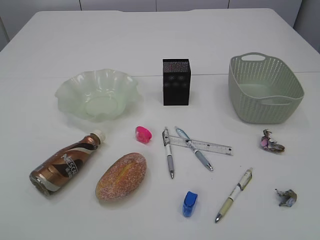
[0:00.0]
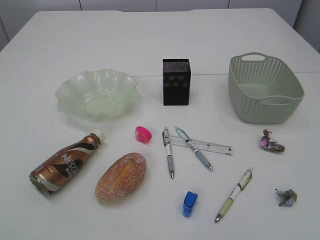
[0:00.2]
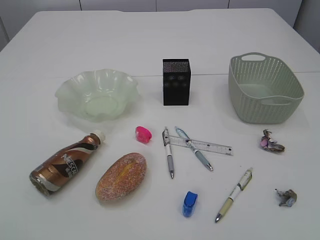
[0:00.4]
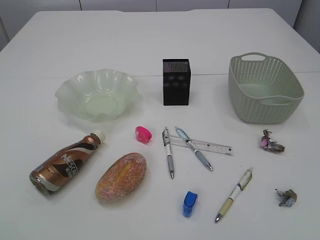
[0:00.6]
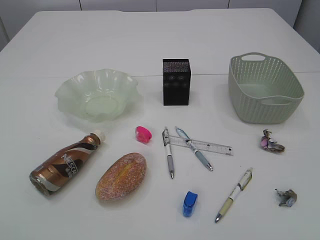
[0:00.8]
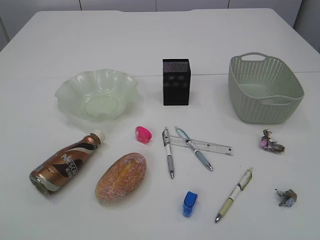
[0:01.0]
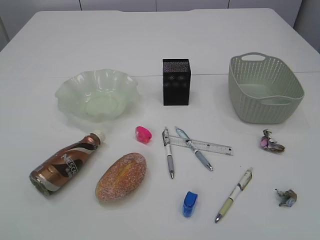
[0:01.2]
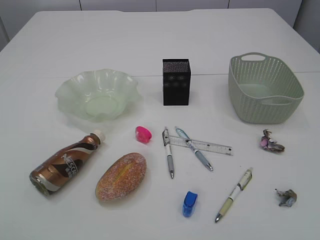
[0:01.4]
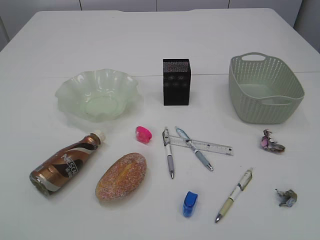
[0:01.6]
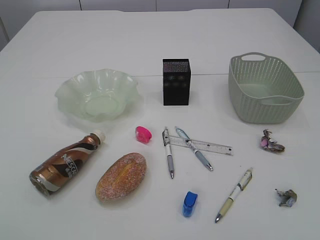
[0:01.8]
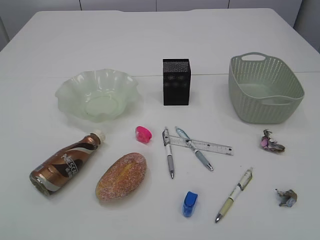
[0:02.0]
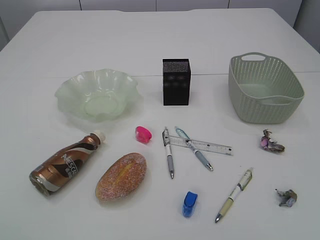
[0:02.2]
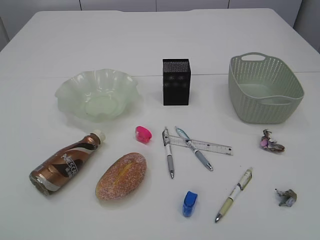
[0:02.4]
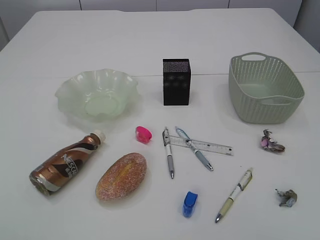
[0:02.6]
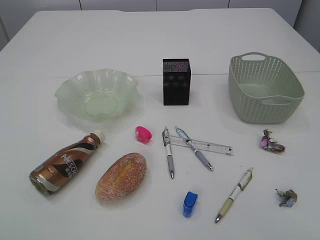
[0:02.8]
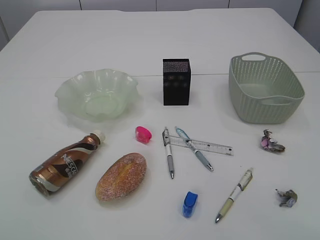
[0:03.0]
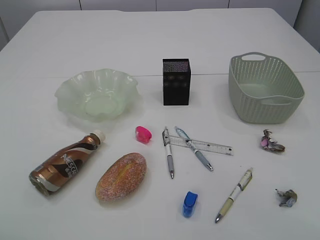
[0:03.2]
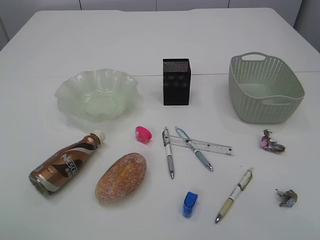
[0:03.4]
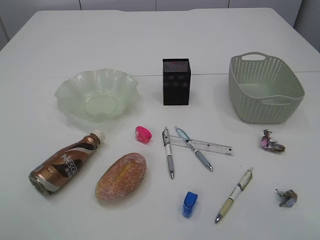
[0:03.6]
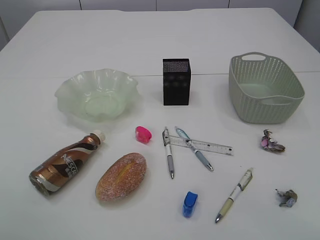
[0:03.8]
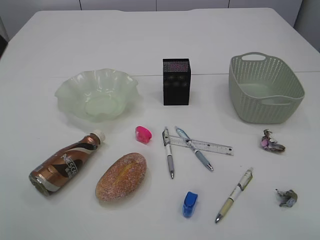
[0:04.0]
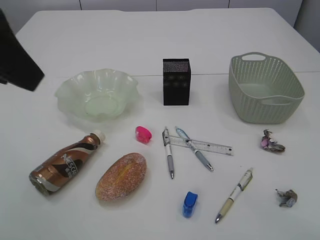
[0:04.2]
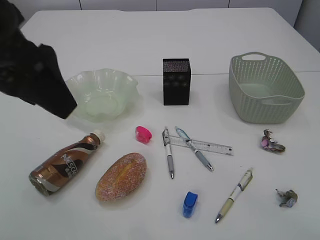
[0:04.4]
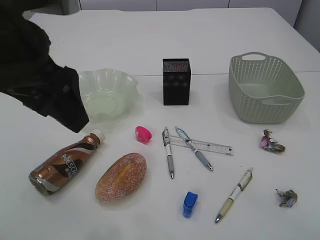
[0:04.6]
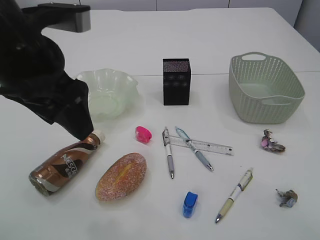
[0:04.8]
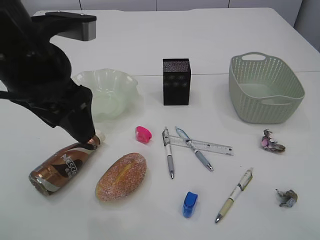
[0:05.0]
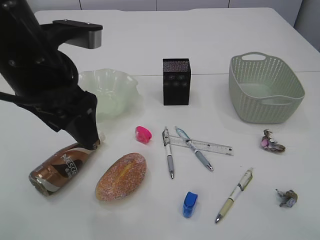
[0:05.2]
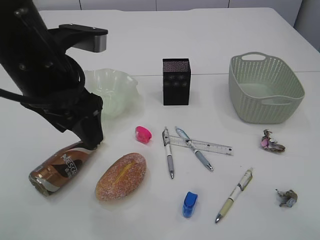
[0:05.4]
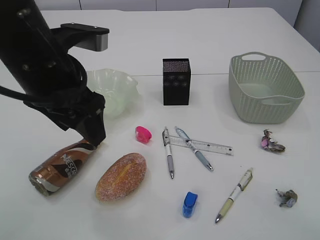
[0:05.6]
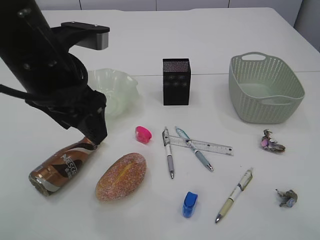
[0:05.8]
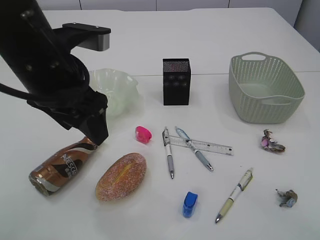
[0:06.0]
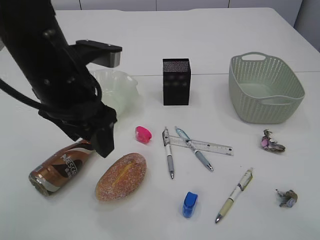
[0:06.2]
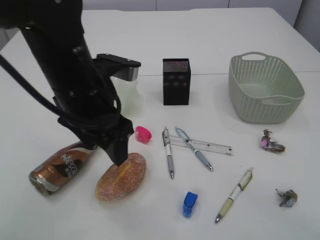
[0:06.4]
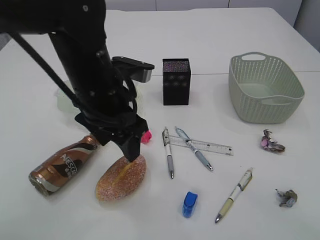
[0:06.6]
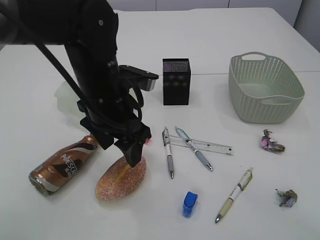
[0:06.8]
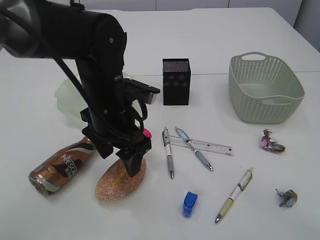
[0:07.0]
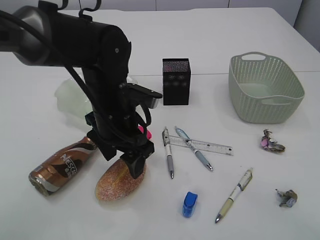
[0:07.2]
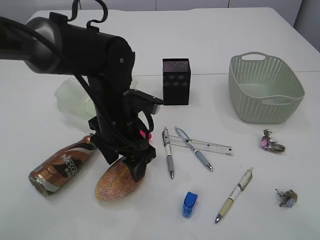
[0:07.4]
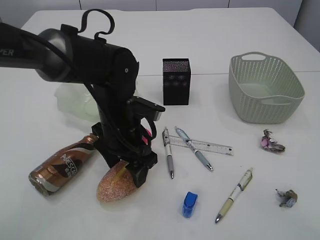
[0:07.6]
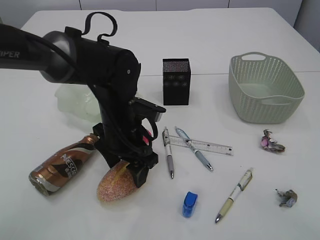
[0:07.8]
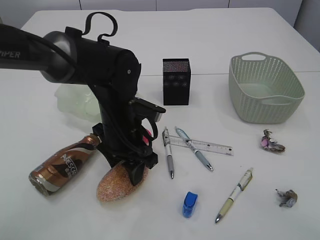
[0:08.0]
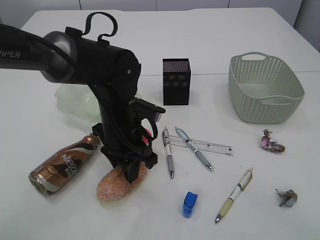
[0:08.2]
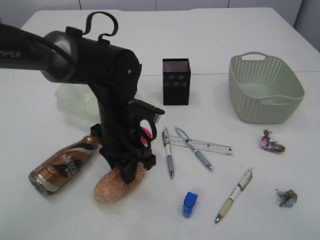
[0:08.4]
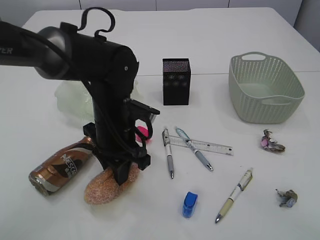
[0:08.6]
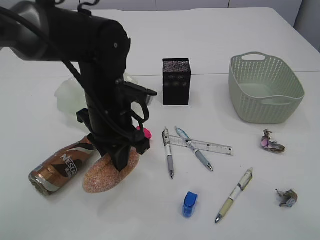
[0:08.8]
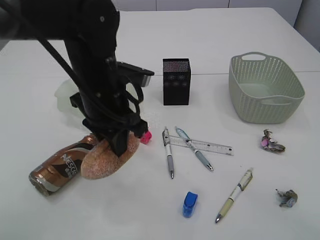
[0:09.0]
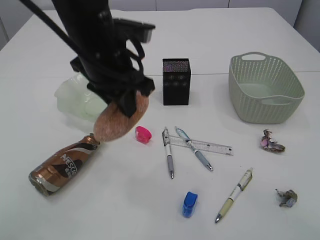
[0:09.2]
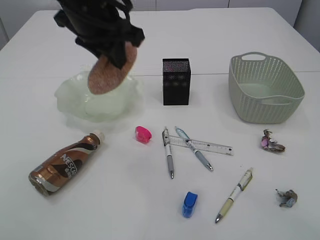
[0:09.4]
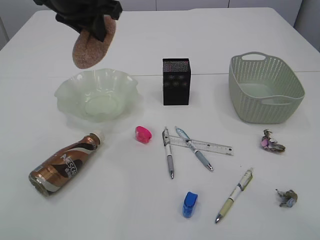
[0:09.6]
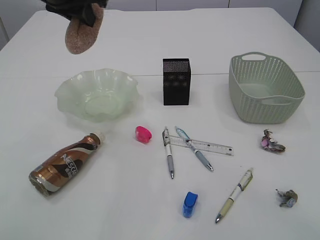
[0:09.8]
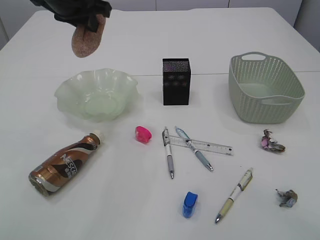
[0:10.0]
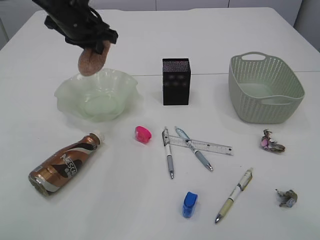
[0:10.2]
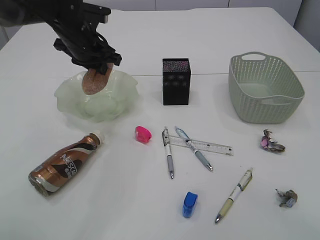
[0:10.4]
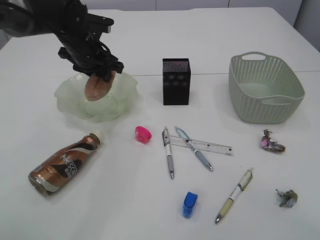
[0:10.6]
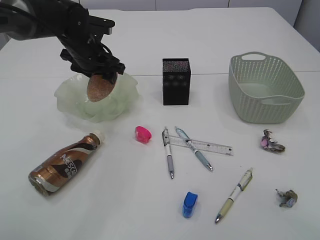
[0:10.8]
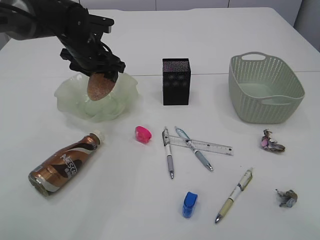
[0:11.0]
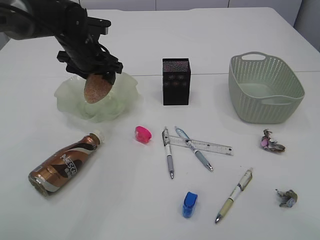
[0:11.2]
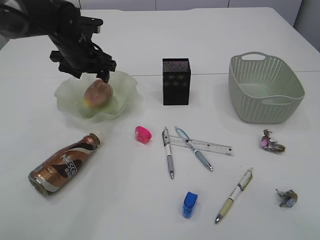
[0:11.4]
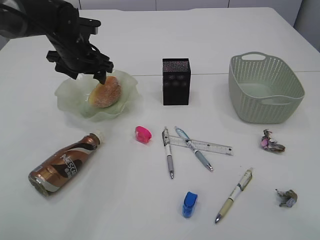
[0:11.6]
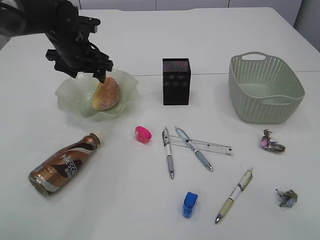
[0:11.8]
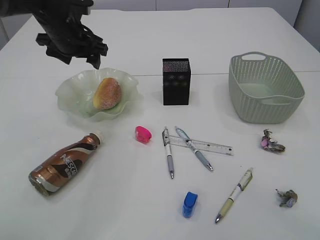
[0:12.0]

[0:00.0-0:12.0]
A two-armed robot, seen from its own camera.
0:03.0 to 0:04.4: The left gripper travels to the right and forward by roughly 15 cm.
0:04.4 to 0:06.0: The left gripper moves downward, about 10 cm.
0:06.0 to 0:07.6: The left gripper goes some 15 cm downward and to the right.
0:07.6 to 0:09.0: The left gripper moves upward, about 5 cm, and closes up.
0:09.0 to 0:10.4: The left gripper is displaced forward and to the left by some 20 cm.
0:10.4 to 0:12.0: The left gripper opens up.

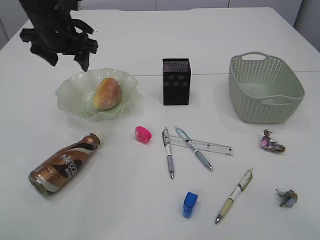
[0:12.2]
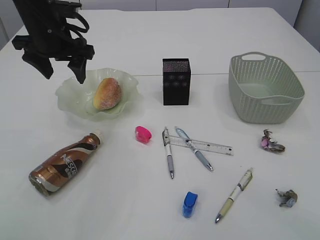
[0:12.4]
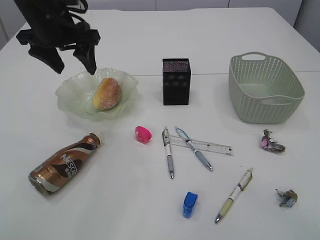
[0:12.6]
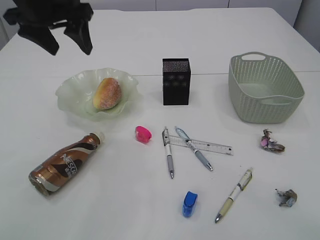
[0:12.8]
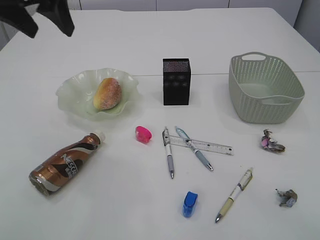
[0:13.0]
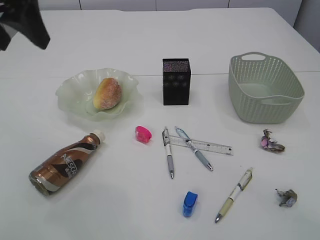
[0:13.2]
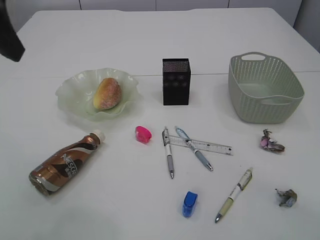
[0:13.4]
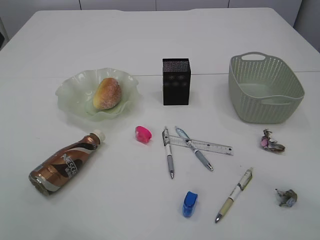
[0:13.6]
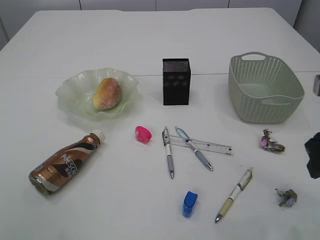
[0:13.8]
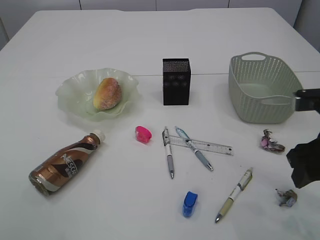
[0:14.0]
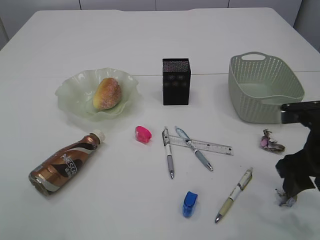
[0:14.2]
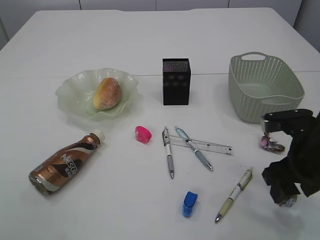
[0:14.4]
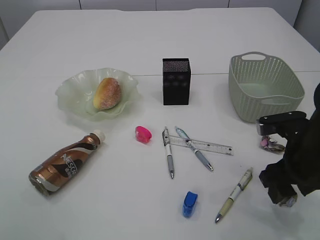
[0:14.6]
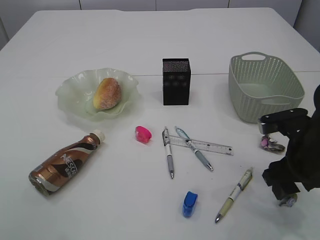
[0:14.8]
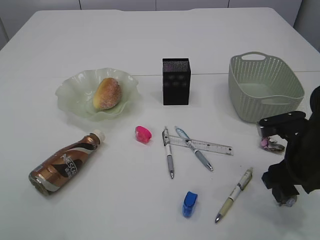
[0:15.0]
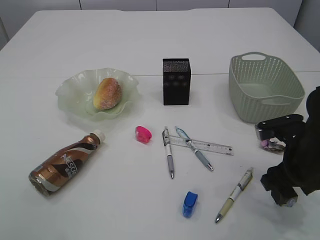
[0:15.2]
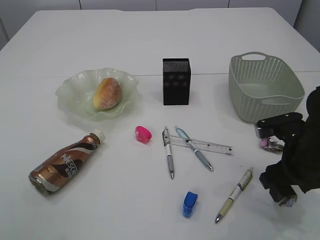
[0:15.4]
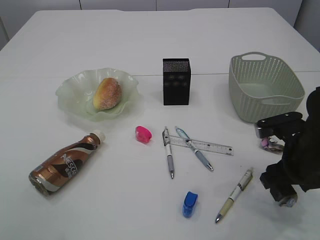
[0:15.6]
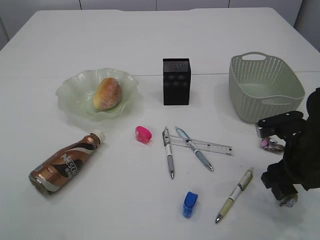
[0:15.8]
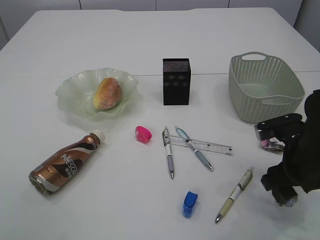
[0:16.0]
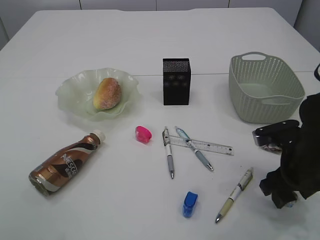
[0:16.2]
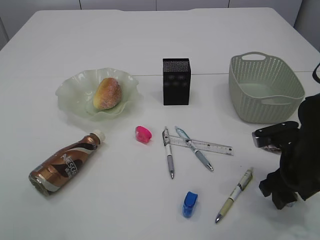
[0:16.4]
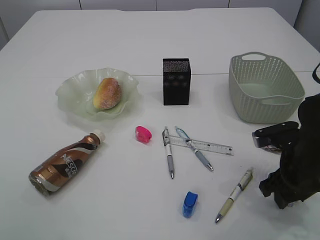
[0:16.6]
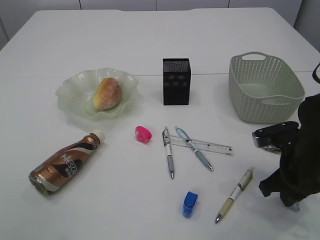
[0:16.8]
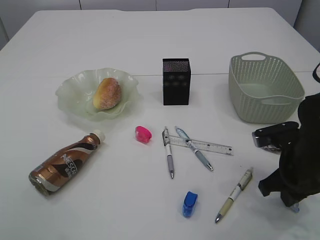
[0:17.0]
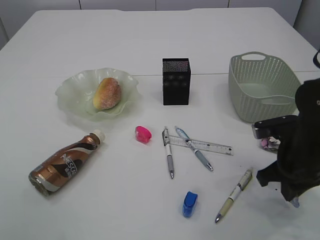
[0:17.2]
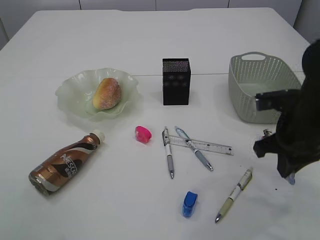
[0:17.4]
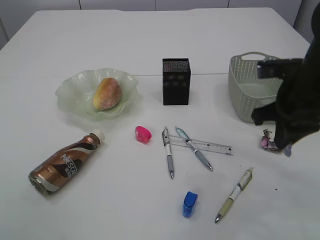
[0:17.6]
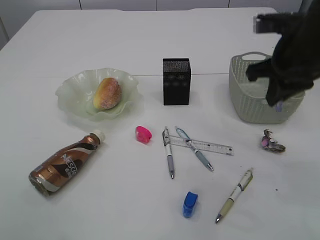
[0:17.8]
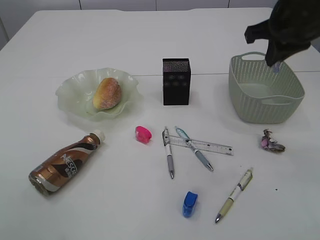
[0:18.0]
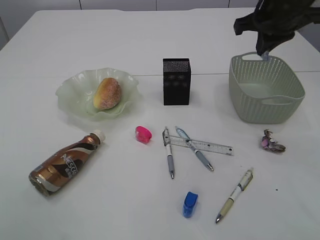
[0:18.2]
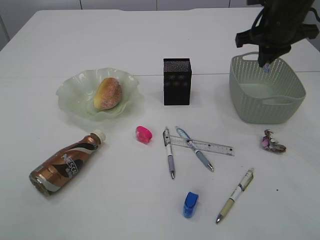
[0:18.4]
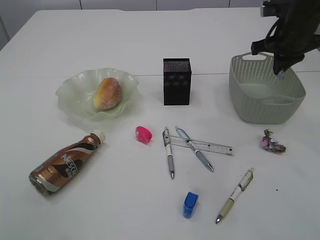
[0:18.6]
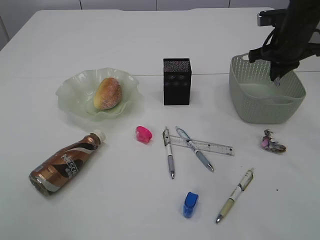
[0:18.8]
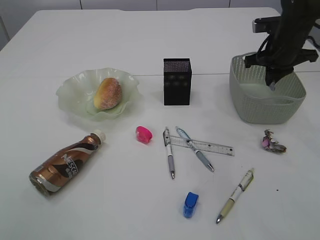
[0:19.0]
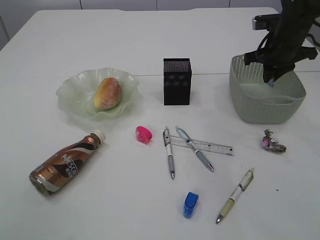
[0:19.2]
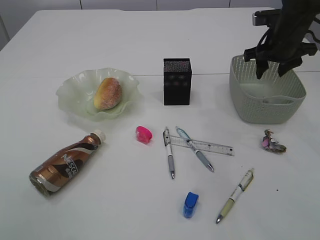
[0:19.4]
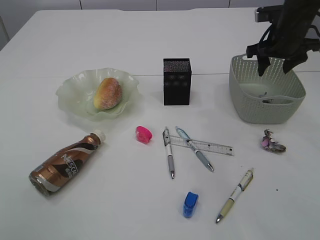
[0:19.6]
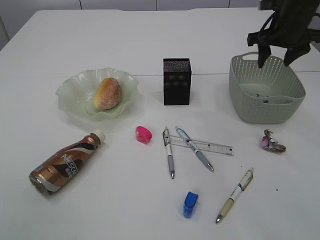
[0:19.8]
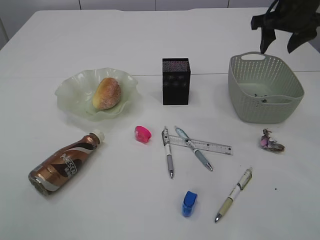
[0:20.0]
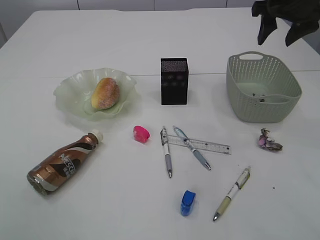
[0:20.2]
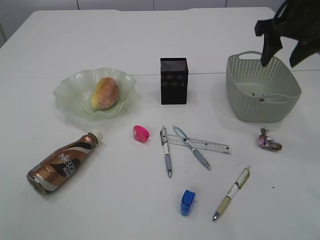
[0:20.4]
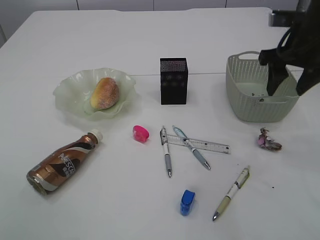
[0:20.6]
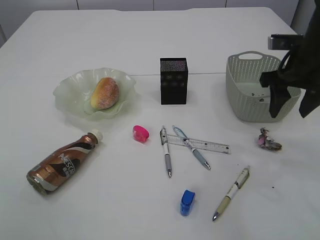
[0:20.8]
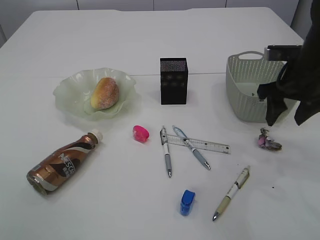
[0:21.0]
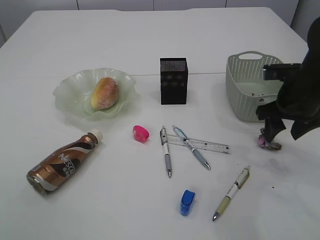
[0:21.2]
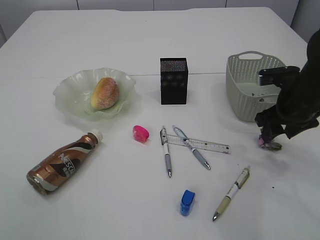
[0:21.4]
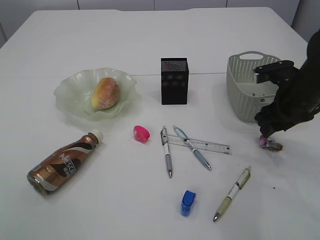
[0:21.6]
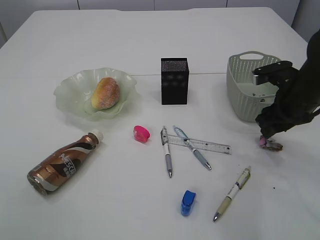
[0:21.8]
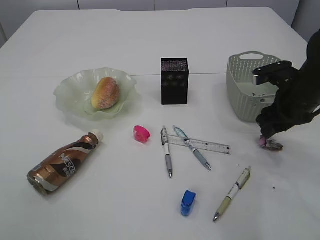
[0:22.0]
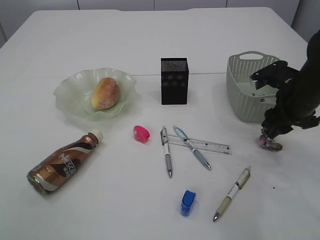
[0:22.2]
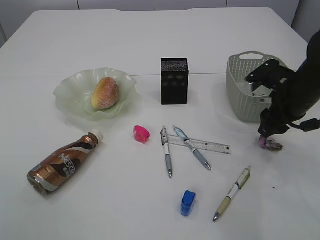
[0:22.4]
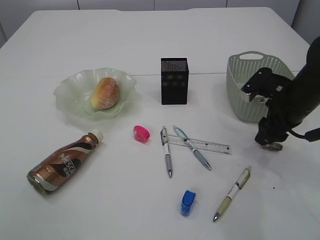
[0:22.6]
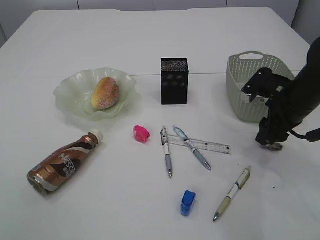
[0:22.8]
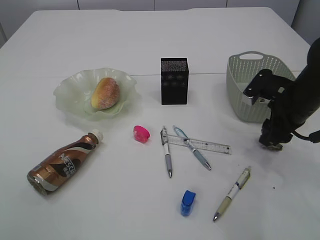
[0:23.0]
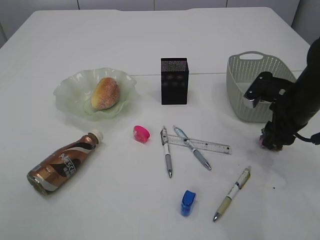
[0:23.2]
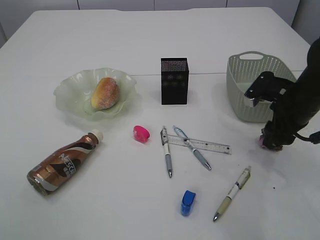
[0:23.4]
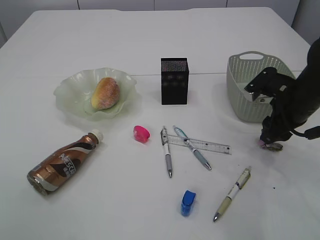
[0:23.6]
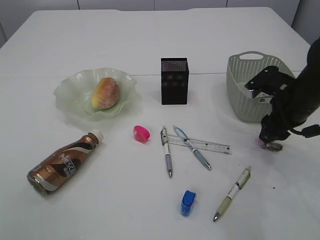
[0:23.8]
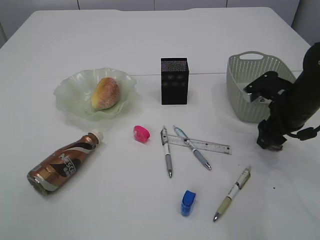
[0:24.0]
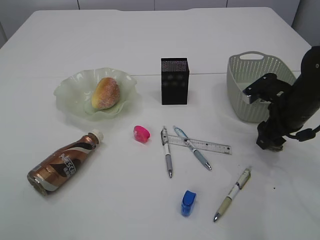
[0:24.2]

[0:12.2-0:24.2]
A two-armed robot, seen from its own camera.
Step, 0:12.2 to 0:17.4: Pick up the waste paper.
Step, 0:17.6 to 0:19.8: Place the waste paper in the basket.
0:12.2 to 0:13.8: The left gripper travels backward and upward by approximately 30 cm, while the right gripper heads forward and downward, covering about 15 cm.
0:13.8 to 0:15.2: The right gripper moves downward and forward, roughly 10 cm.
0:15.2 to 0:16.6: The grippers make only small movements.
0:16.6 to 0:18.2: The right gripper heads upward and forward, covering roughly 25 cm, and closes.
0:18.2 to 0:19.8: The right gripper heads forward, to the right and downward, covering about 10 cm, and opens up.
0:19.8 to 0:21.2: The right gripper heads backward and downward, covering about 15 cm.
0:22.6 to 0:24.2: The grippers stay close to where they were, moving slightly.
